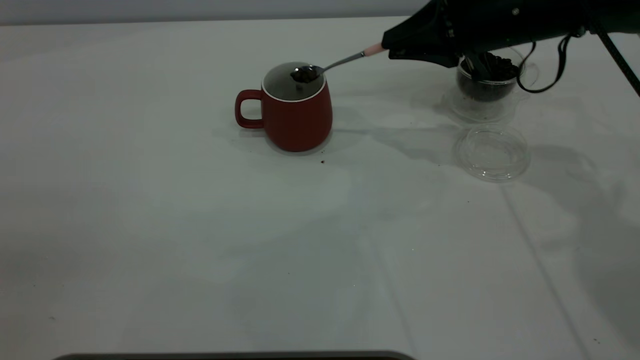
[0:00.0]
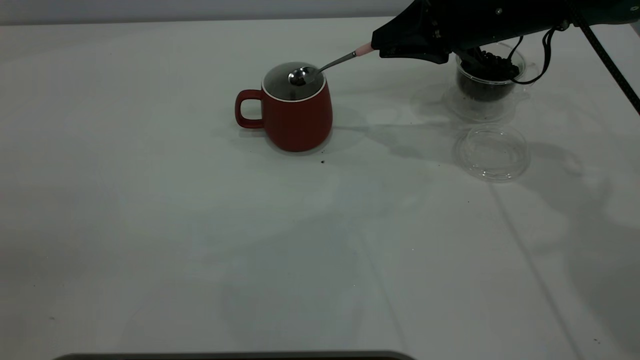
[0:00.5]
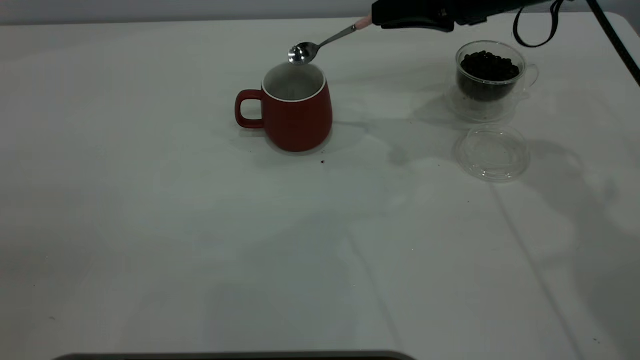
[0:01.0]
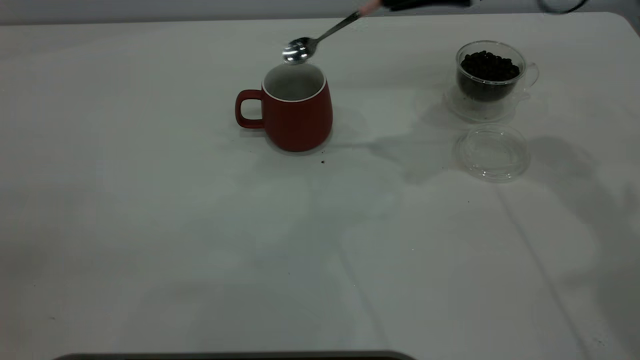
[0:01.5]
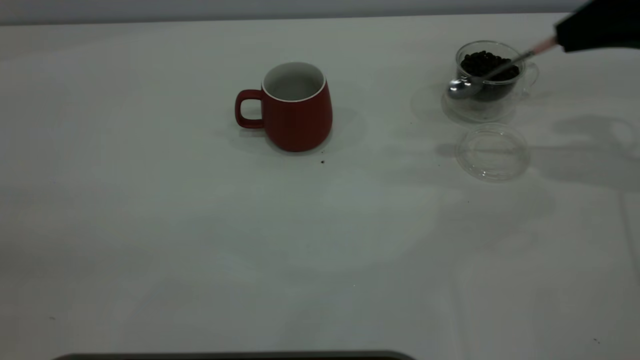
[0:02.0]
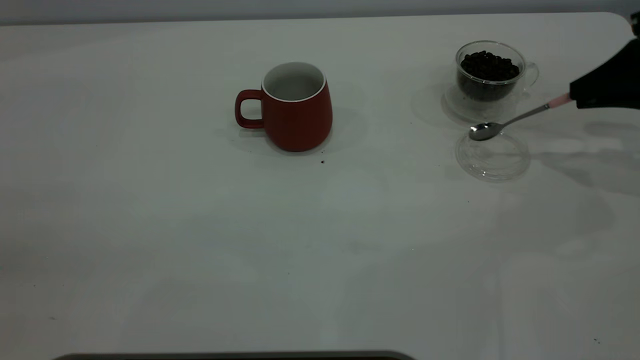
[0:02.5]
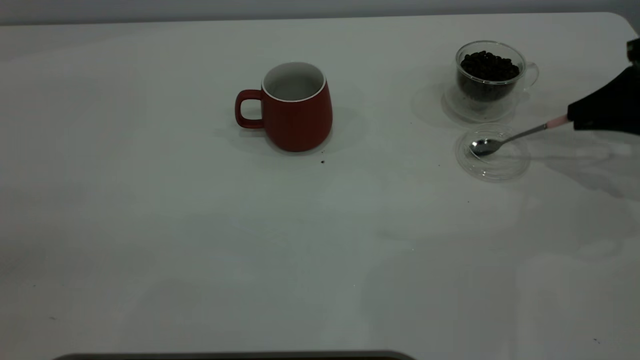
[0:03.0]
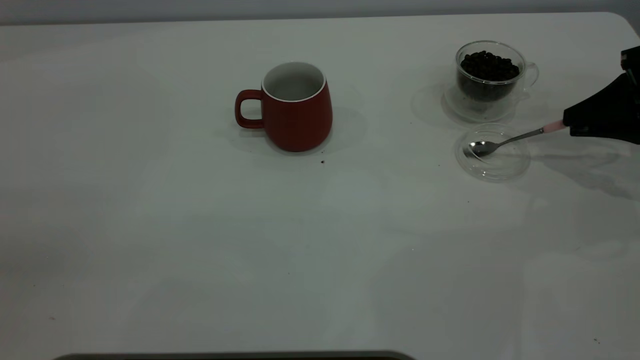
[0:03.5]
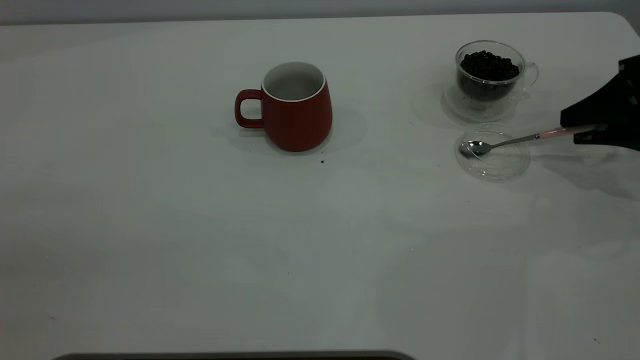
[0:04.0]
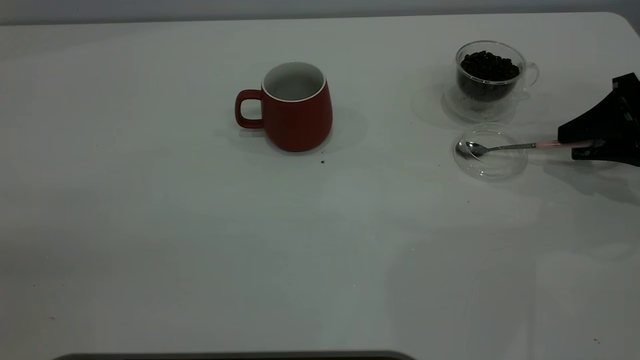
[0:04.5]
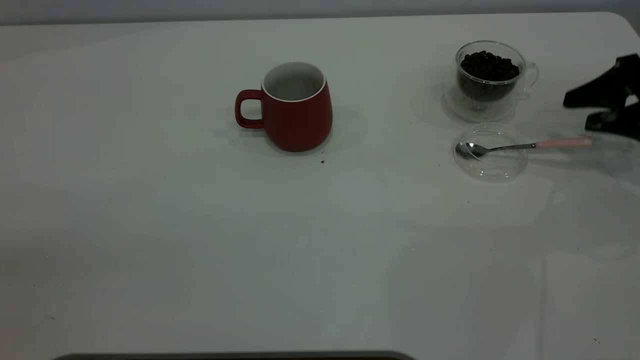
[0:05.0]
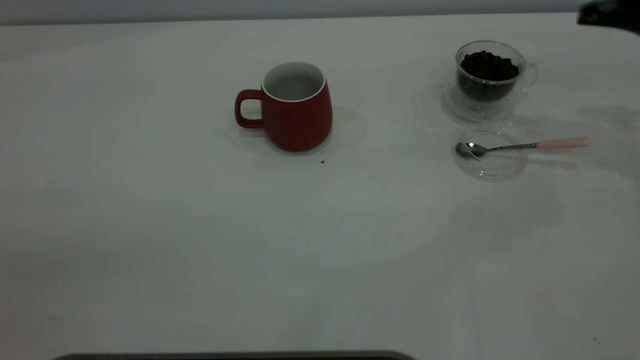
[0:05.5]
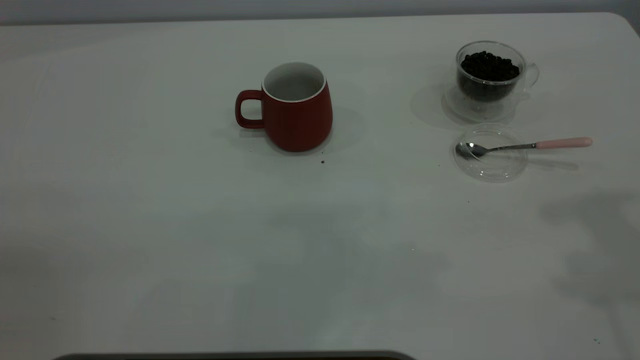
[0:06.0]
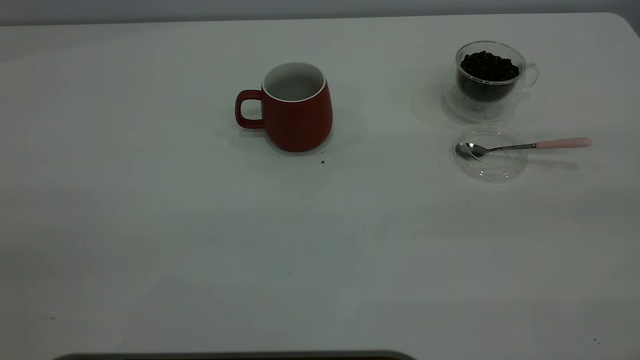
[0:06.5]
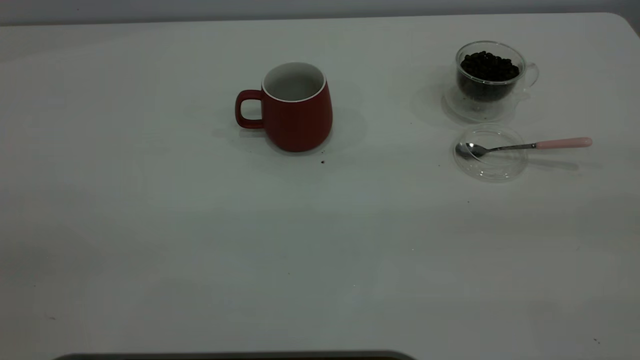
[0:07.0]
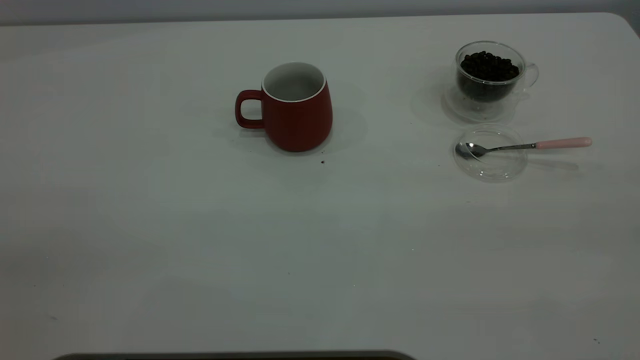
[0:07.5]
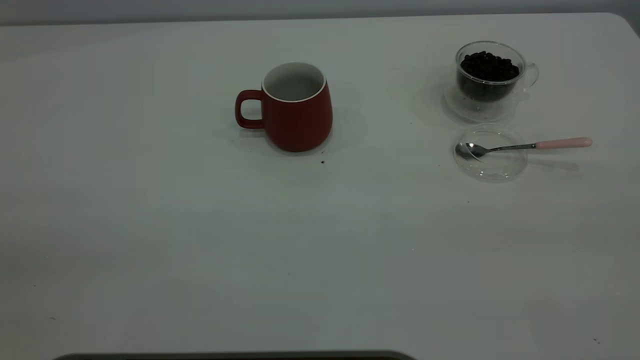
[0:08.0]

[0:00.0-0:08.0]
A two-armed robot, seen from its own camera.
Task of the whole recording: the left gripper place the red cup in the center of the table, the right gripper take the pink spoon from the cup lid and scoop out the coffee beans from the coffee cup and put them into the red cup, the right gripper put the spoon back into the cup lid.
Step, 0:01.5 to 0:05.0: Place the spoon back in its original place.
0:00.0 to 0:02.0: The right gripper moves to the right, roughly 15 cm.
0:02.0 to 0:04.0: The right gripper is displaced downward by approximately 10 cm, and opens its fingers.
0:04.0 to 0:06.0: The right gripper heads upward and backward, covering roughly 30 cm.
